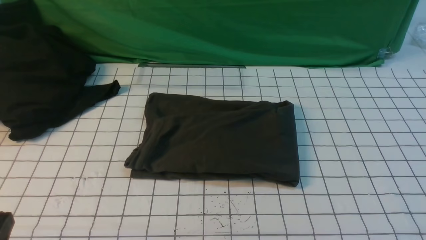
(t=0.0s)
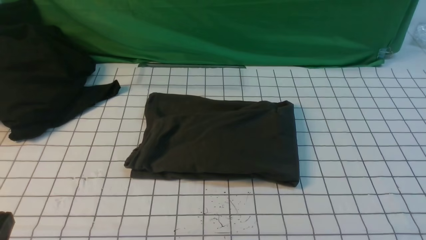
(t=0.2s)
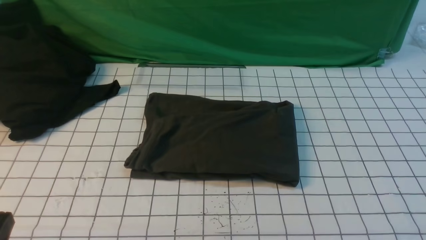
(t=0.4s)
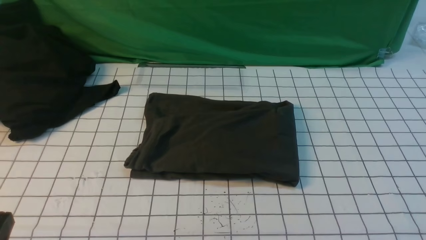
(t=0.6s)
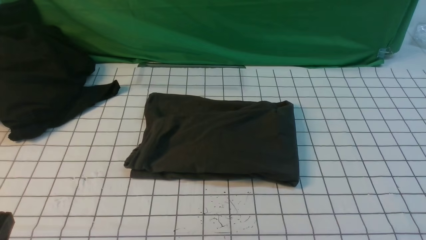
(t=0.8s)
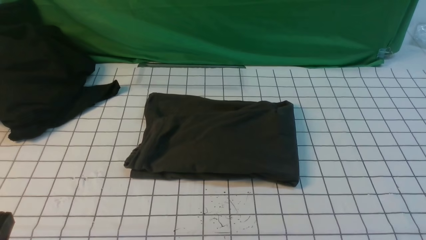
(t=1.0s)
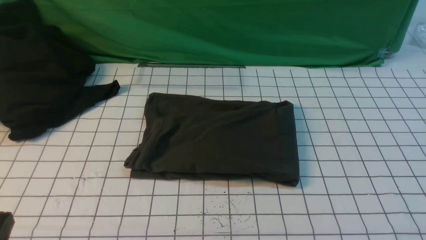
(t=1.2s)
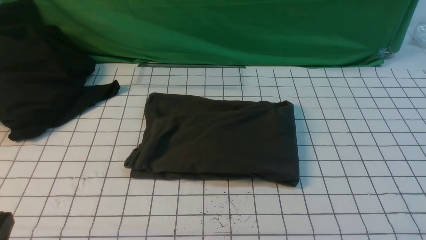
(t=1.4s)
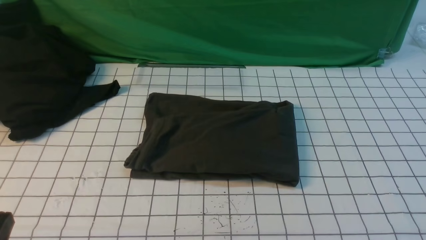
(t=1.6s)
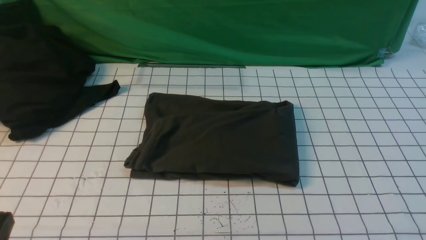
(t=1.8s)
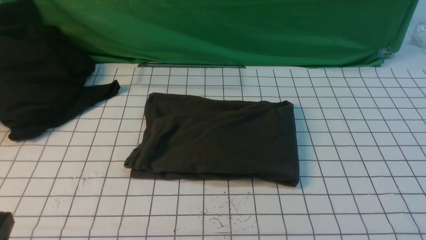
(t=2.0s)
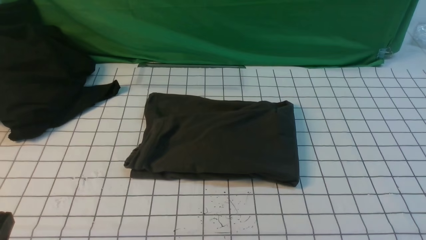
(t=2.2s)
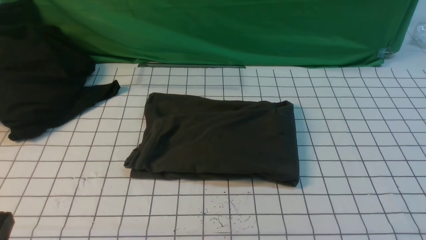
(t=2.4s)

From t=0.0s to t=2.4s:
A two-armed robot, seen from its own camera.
From t=1.2s to t=2.4s: Both grippers stay about where they are.
